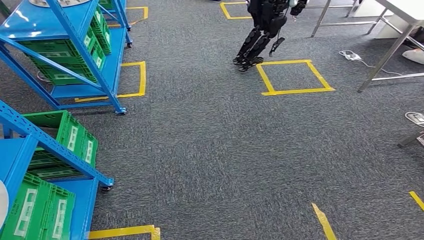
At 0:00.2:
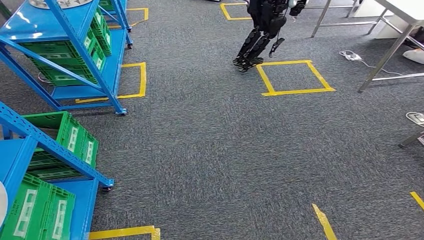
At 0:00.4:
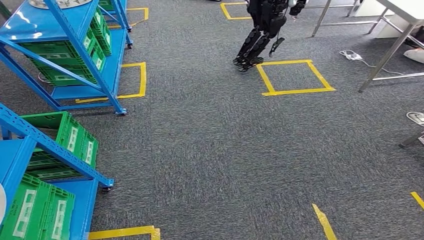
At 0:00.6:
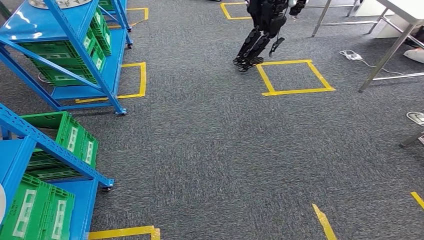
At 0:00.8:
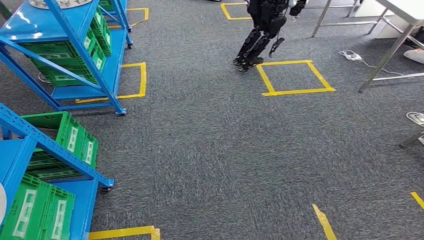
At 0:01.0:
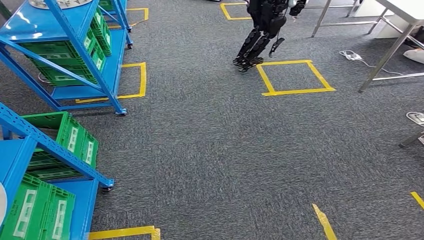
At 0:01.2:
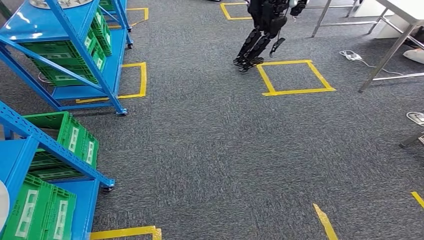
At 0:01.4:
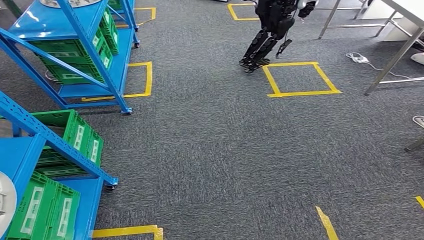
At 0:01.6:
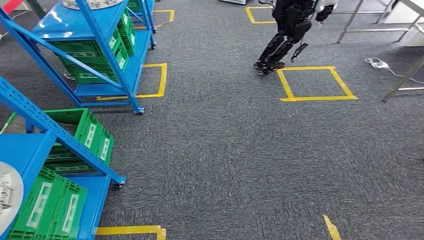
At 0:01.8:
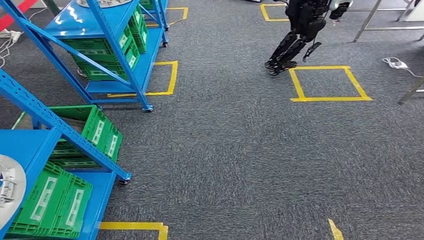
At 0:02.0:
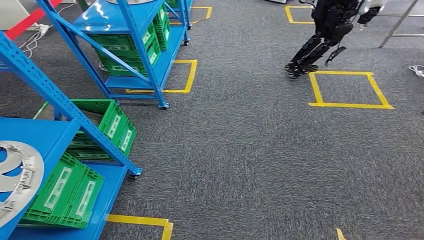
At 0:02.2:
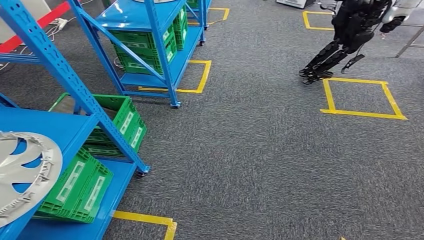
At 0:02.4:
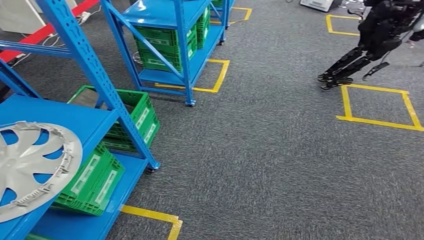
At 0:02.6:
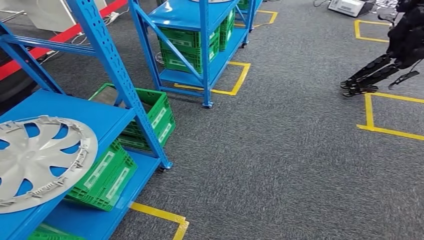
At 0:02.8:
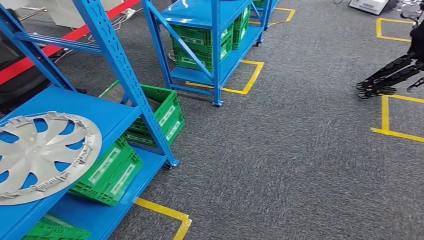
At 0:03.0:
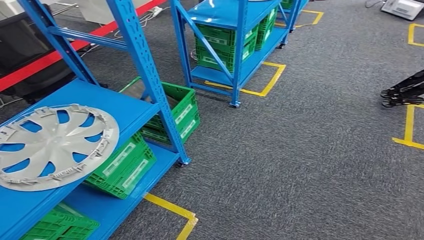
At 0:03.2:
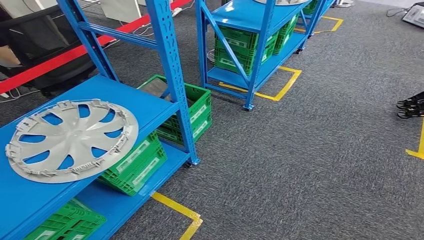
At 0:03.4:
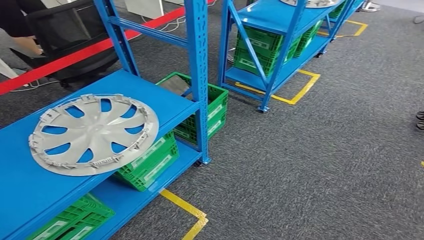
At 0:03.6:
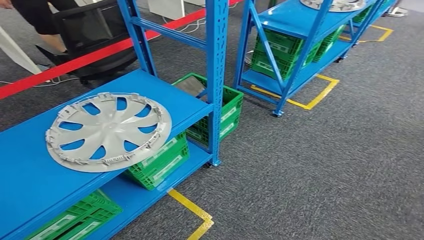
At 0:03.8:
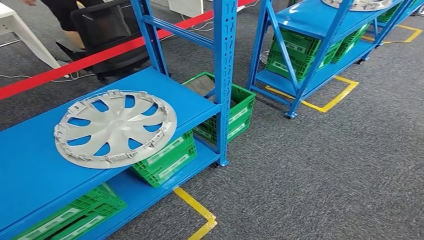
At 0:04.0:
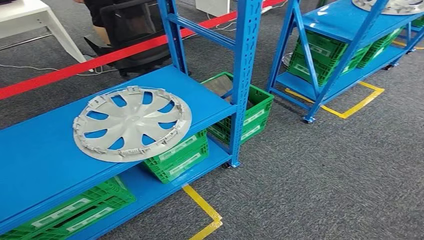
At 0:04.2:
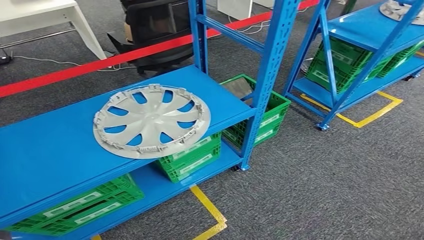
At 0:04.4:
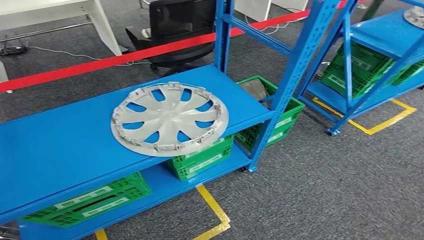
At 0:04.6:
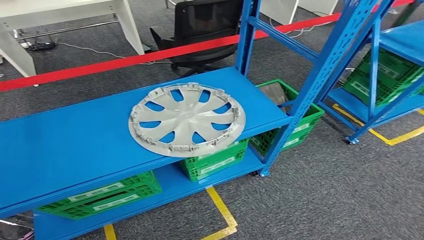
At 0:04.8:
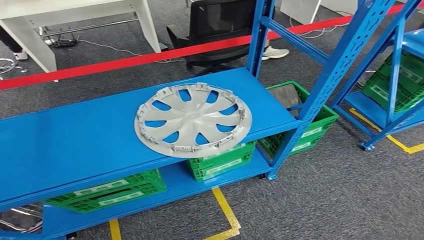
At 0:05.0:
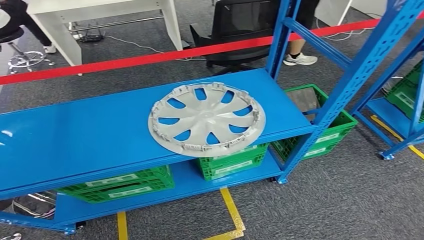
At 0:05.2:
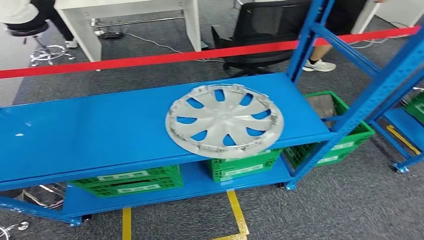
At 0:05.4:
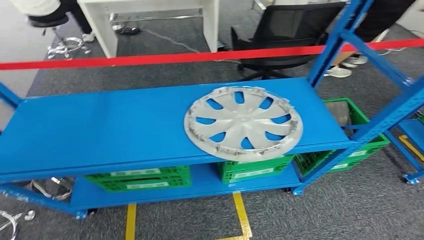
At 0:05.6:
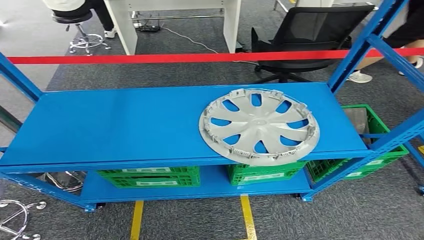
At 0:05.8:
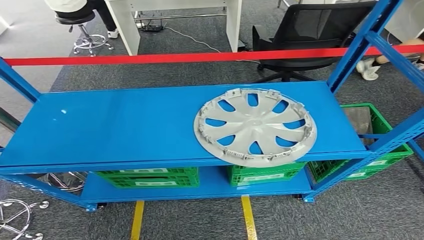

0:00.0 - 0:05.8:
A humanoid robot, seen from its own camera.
Step, 0:00.0 - 0:05.8: Return to the initial position at the workbench.
0:00.0 - 0:01.4: The two hands keep their place.
